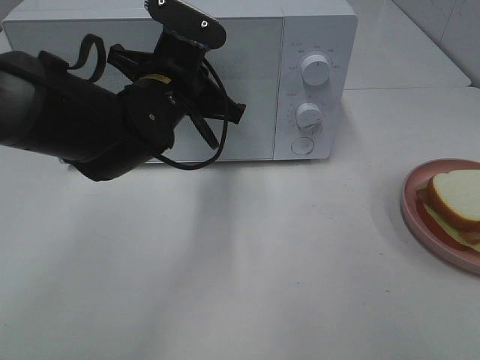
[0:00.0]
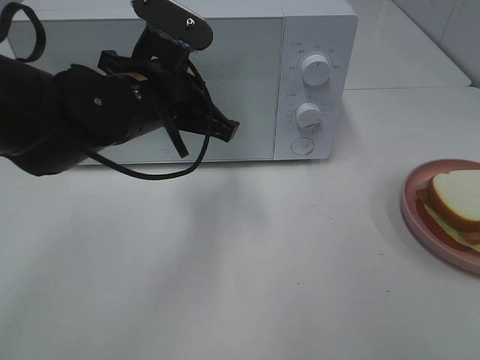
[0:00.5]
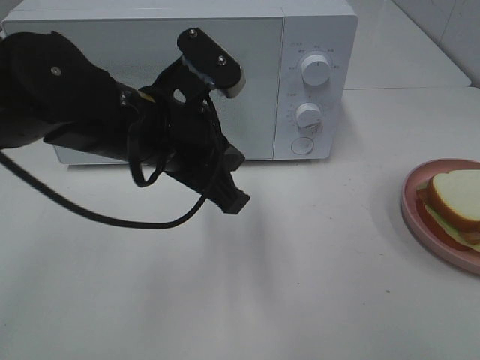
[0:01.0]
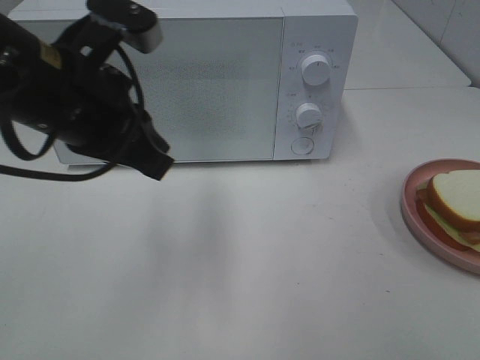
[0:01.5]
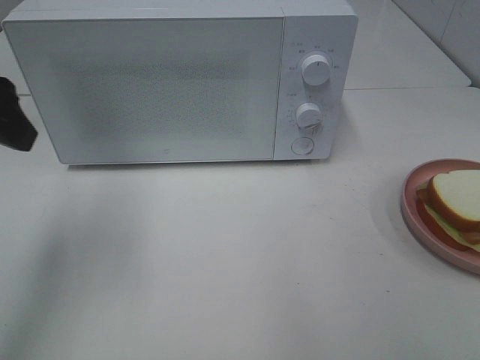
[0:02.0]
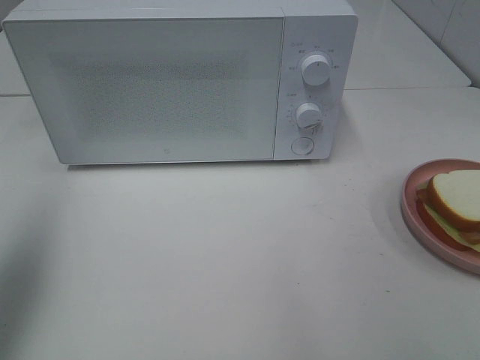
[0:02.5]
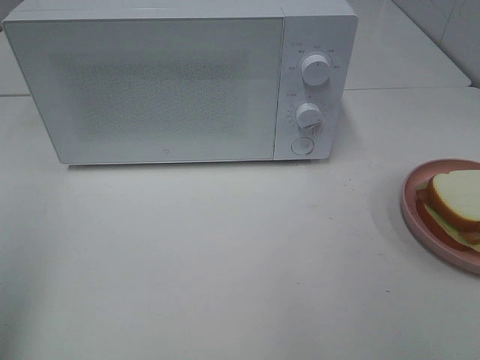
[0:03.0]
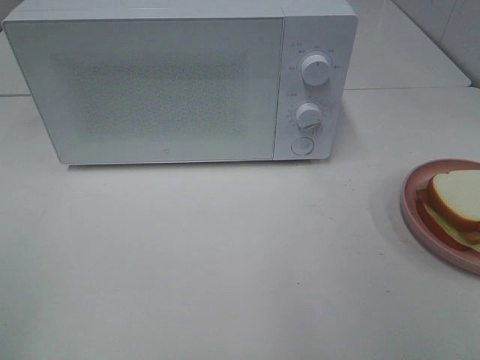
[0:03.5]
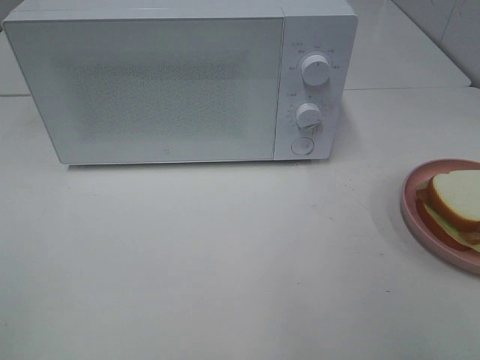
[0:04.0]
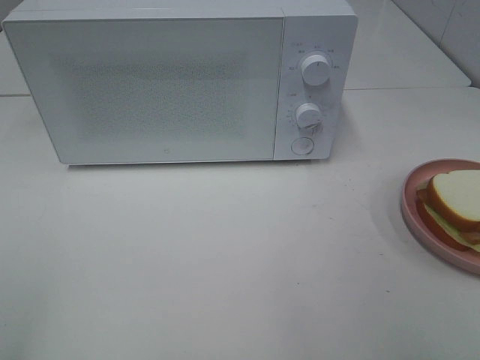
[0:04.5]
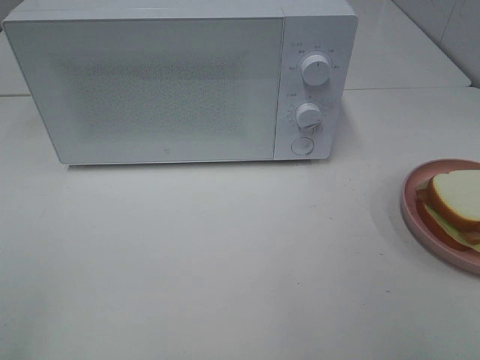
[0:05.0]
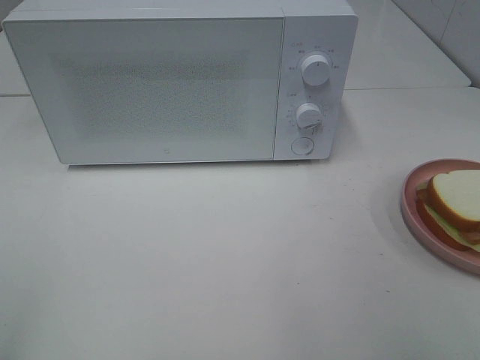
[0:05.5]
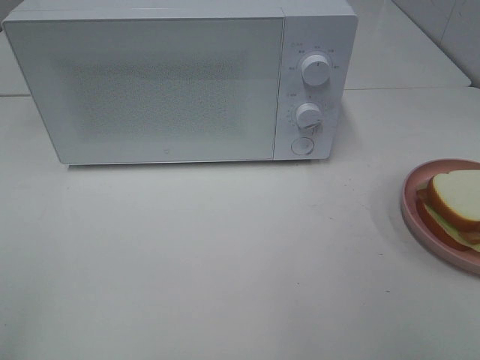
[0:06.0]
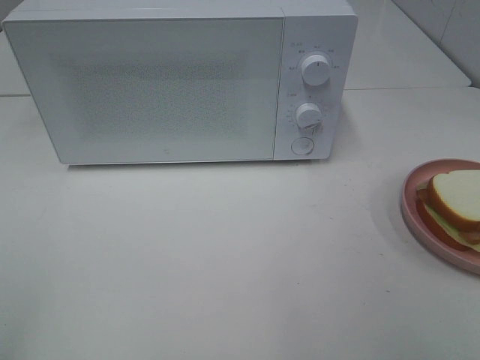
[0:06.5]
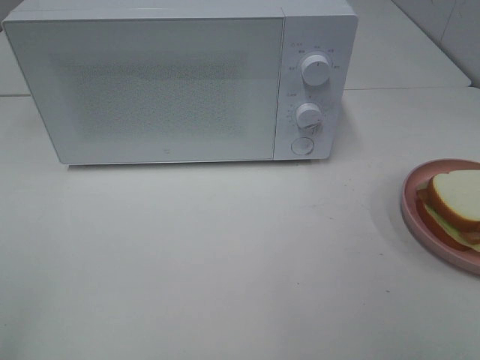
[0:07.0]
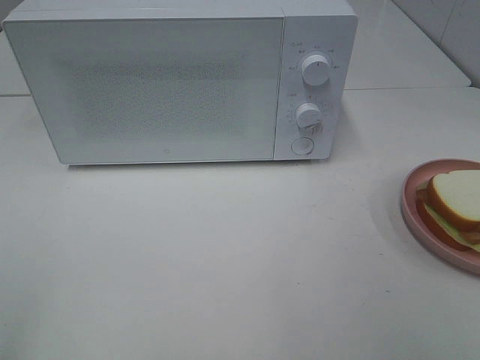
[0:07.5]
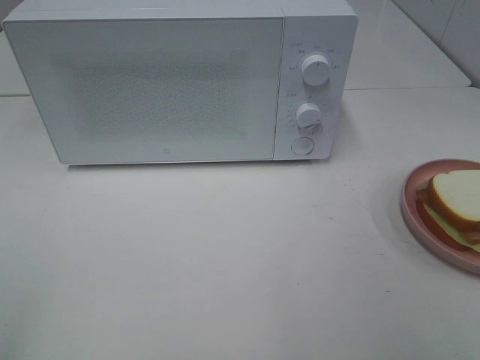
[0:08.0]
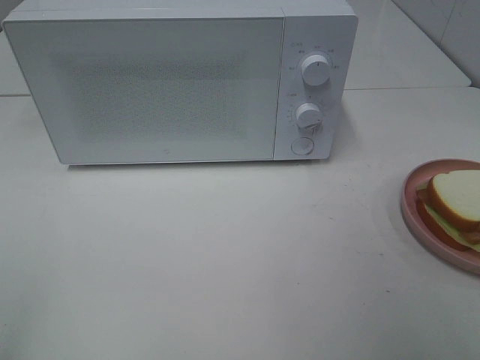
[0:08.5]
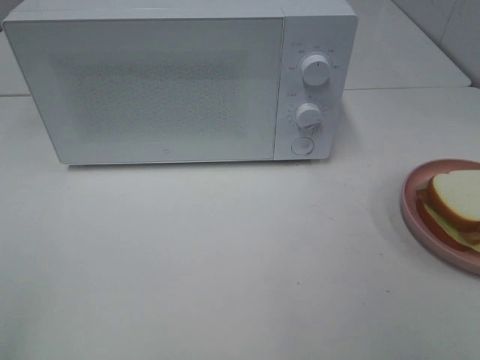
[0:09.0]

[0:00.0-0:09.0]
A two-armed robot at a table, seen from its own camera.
Task of the whole recording: Heat Sandwich.
0:00.0 to 0:02.0: The left gripper heads to the left, upward and backward, covering roughly 25 cm, and opens its fingers.
0:02.0 to 0:04.5: The left gripper goes roughly 25 cm backward.
0:07.0 to 0:09.0: Neither gripper changes place.

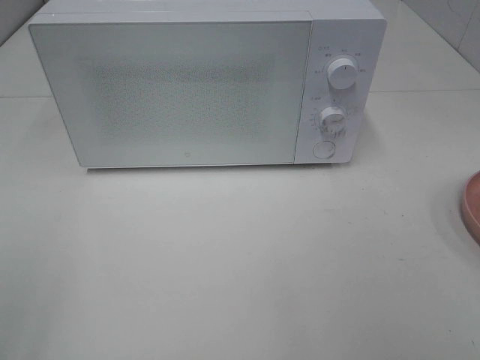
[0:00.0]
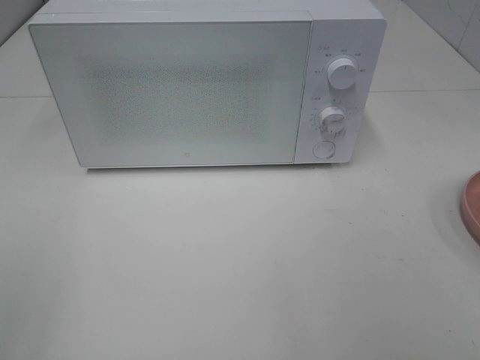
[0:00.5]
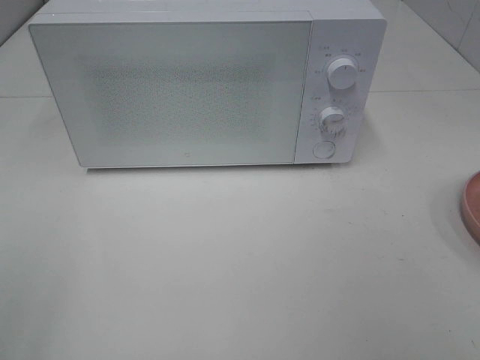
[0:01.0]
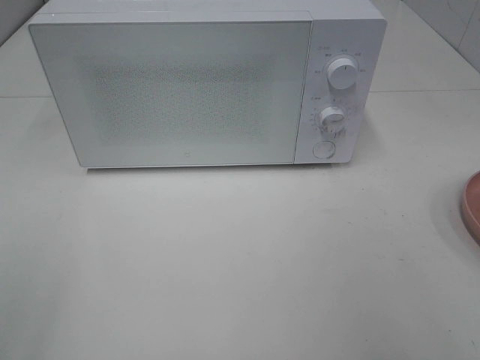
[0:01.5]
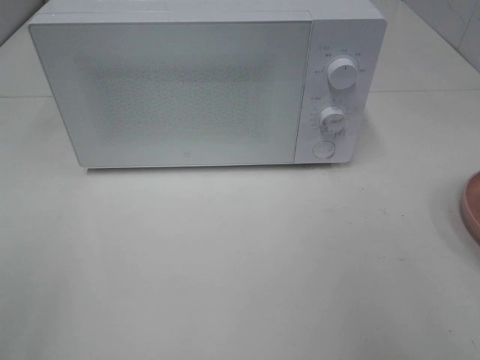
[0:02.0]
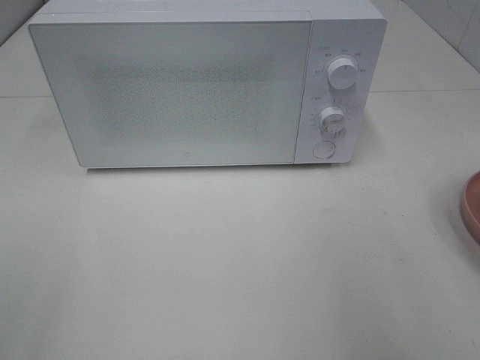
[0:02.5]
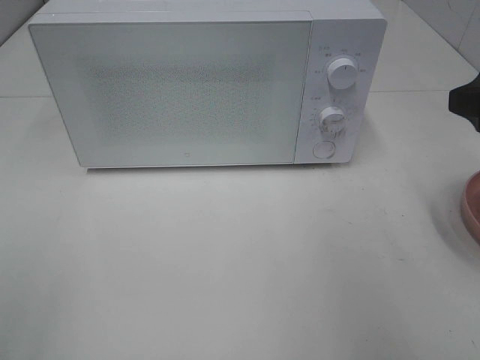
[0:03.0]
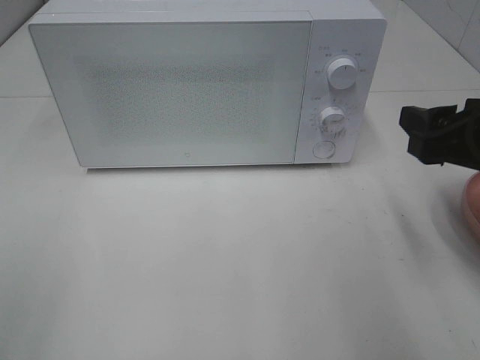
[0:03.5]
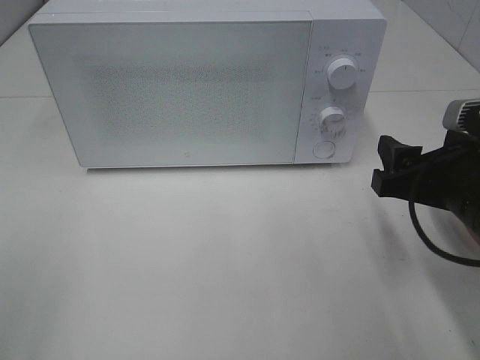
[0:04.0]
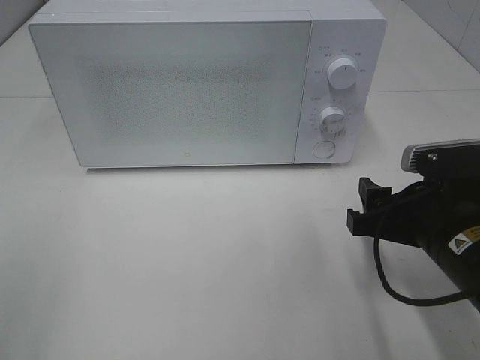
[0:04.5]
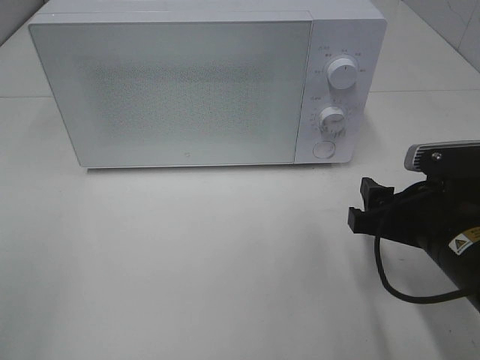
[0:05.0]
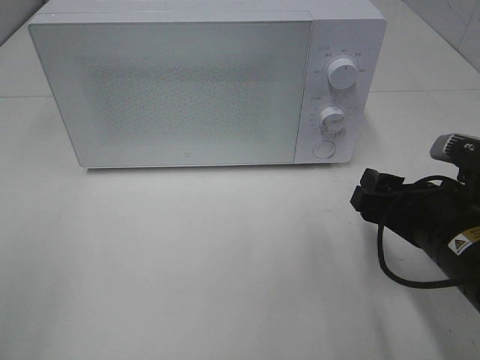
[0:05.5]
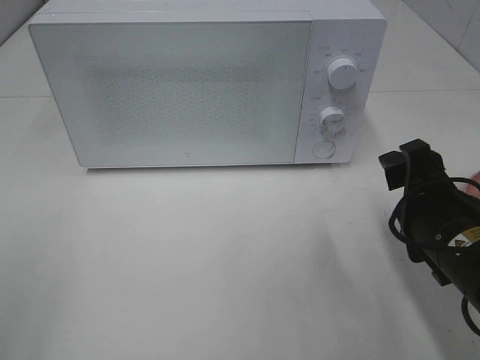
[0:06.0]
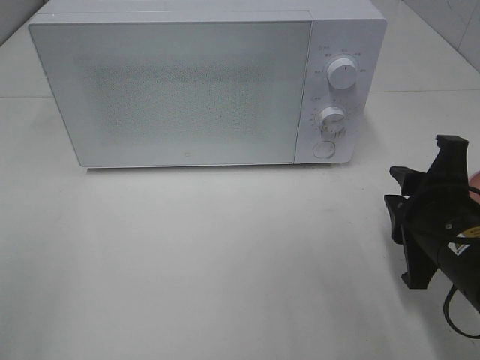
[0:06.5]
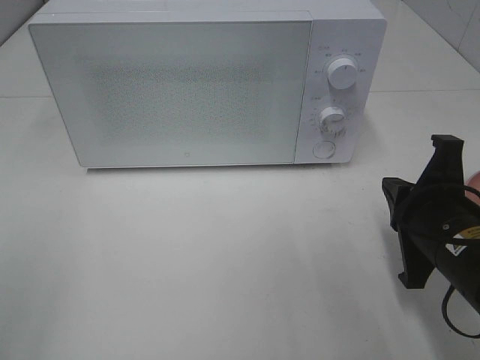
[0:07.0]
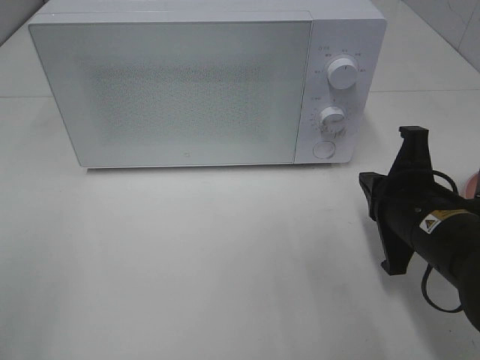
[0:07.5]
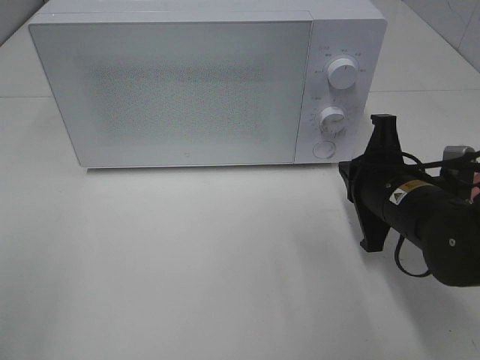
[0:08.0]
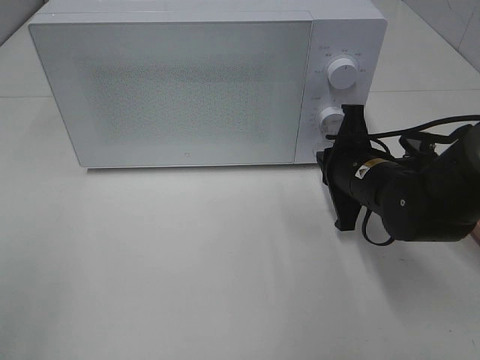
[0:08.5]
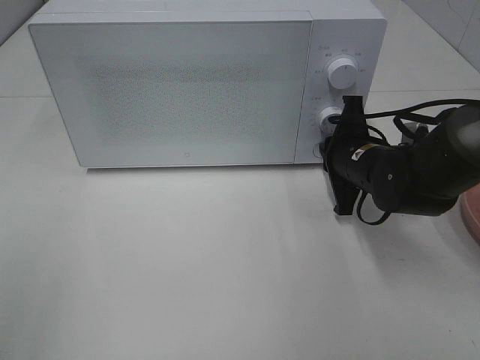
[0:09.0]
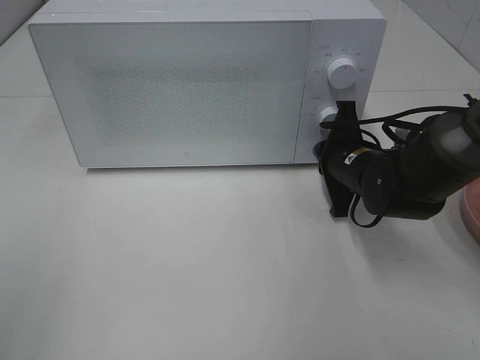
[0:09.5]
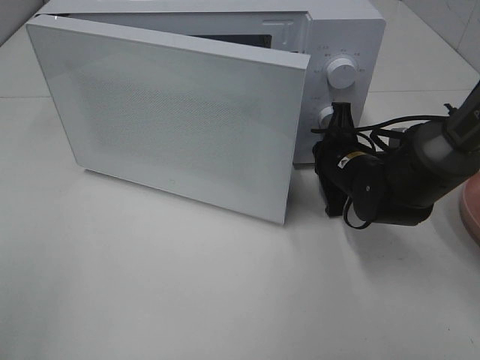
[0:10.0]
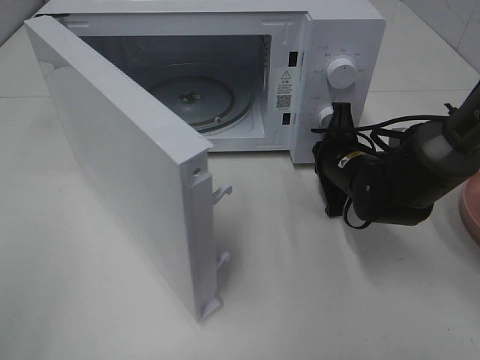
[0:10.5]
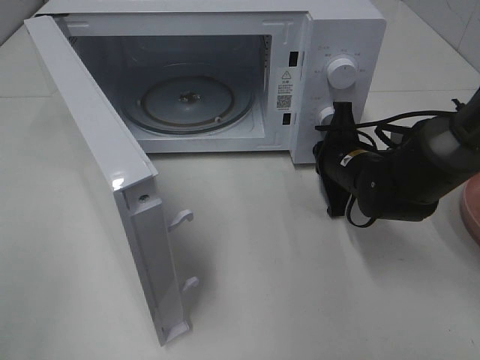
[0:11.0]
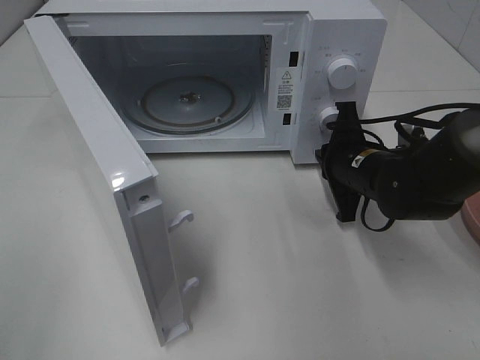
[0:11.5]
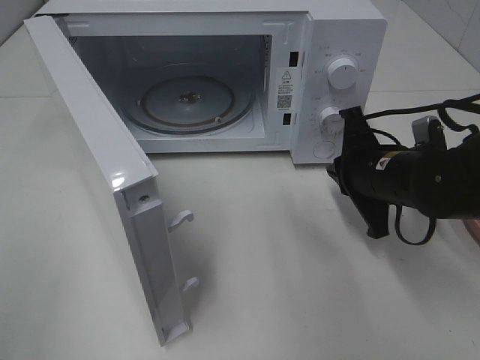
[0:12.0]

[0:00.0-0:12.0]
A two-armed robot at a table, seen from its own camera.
Task of the whole recording: Heat Sandwich.
Step, 0:00.0 to 0:11.0: Right hand: press the switch.
0:02.0 to 0:04.0: The right gripper shifts about 15 cm downward, forward and to the left.
0:06.0 to 0:08.0: The right gripper is displaced forward by approximately 5 cm, and closes.
0:08.0 to 0:10.0: The right gripper is displaced forward by some 10 cm.
0:10.0 to 0:12.0: The right gripper travels backward by some 5 cm.

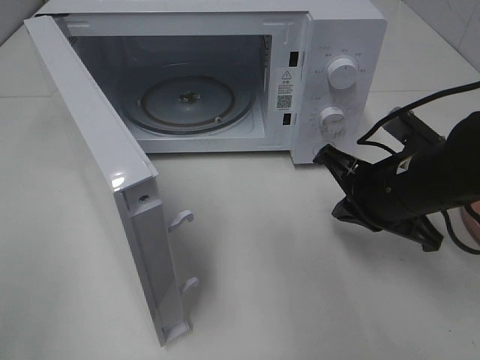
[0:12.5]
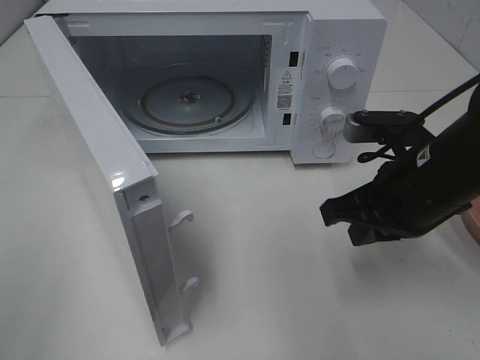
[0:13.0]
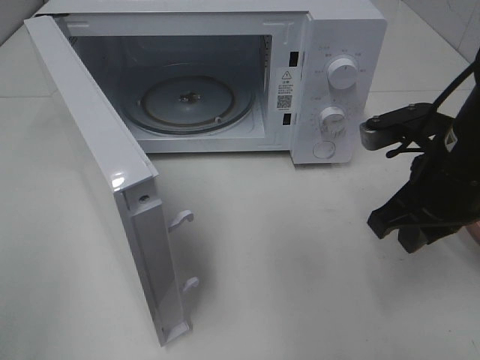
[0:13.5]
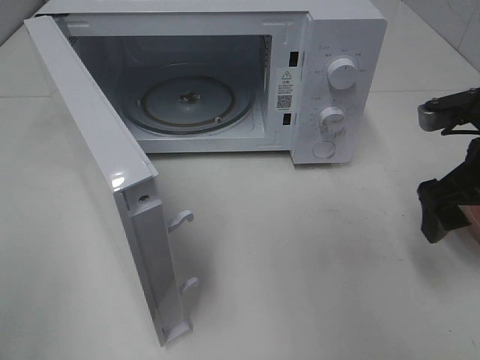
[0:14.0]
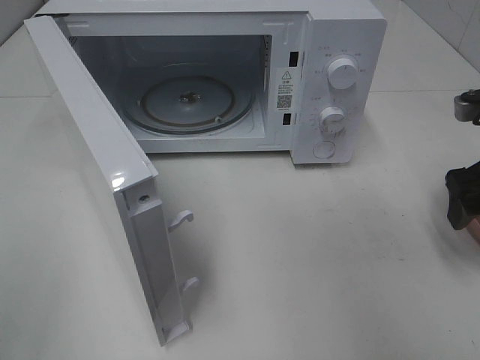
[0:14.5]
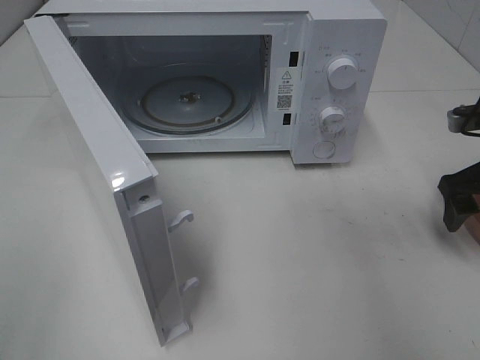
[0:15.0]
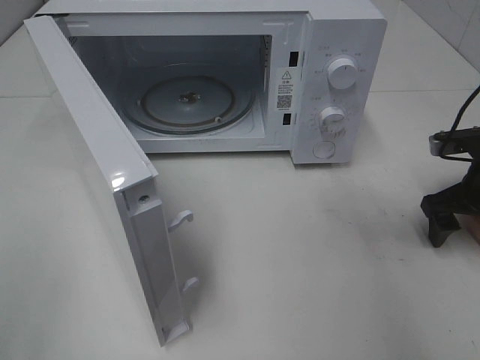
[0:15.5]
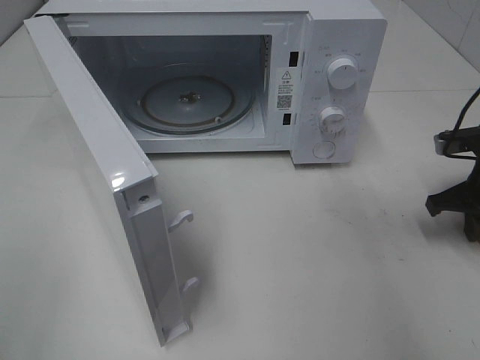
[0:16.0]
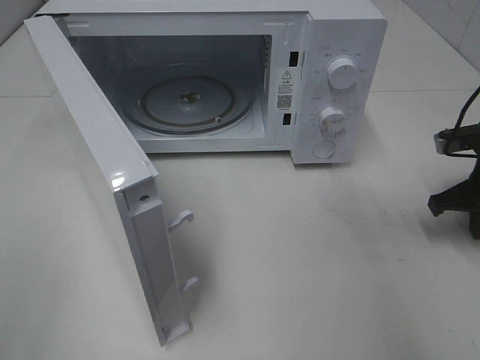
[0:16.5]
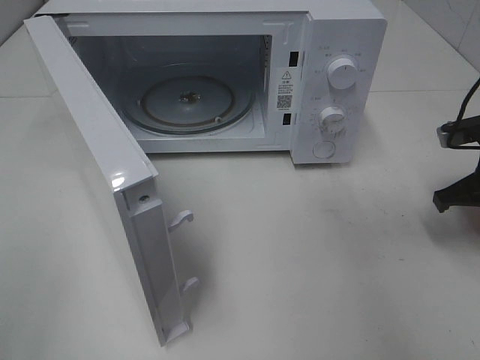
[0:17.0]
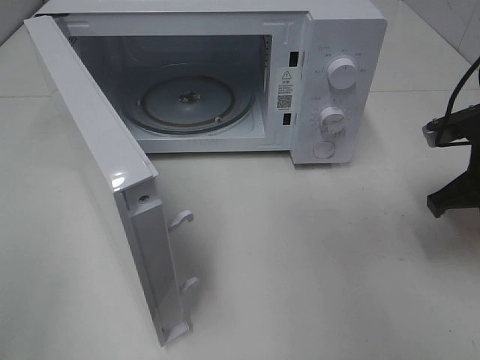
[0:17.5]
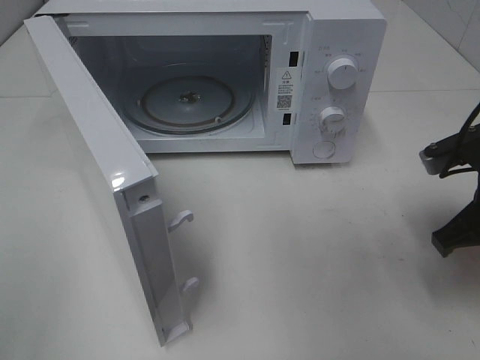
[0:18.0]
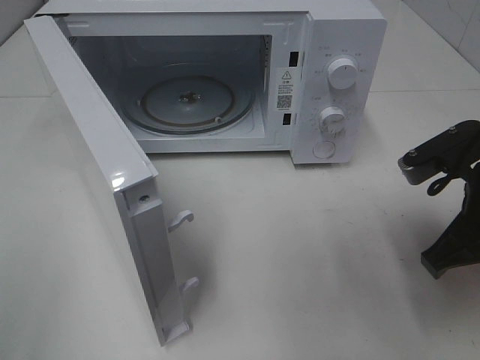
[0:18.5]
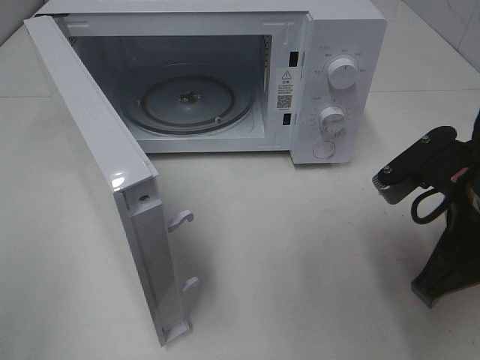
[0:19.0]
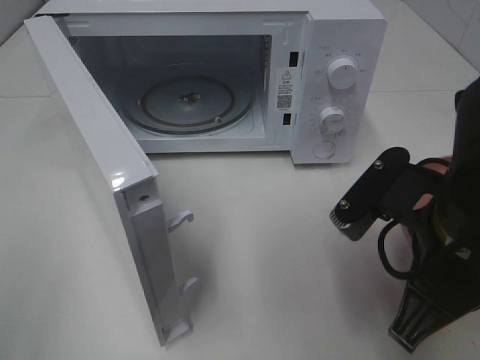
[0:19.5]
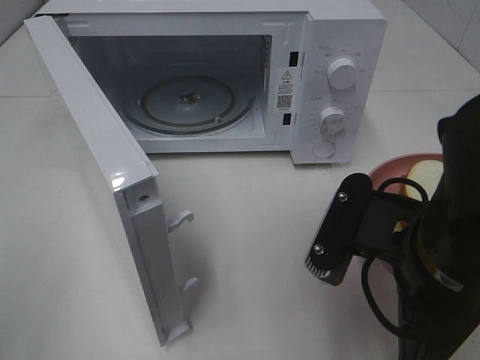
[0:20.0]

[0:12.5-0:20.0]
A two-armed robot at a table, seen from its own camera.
Task of the whole recording: Heat Sandwich.
Step, 0:12.5 to 0:16.0: Right hand: grab the plate with the sandwich.
0:12.5 to 0:14.5: The right gripper is displaced to the right by approximately 10 cm, and opens its fingers.
0:14.5 to 0:16.5: The right gripper goes some 5 cm downward, and closes its fingers.
0:16.5 to 0:18.0: The right gripper goes about 10 cm backward and to the left.
0:18.0 to 0:20.0: The right gripper goes about 15 cm to the left and backward.
